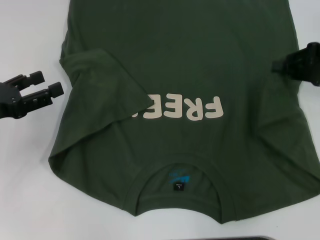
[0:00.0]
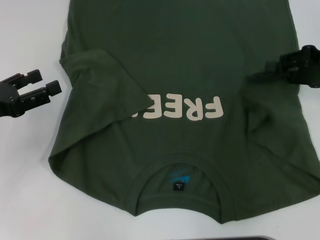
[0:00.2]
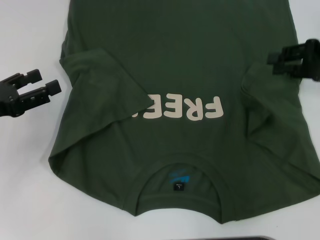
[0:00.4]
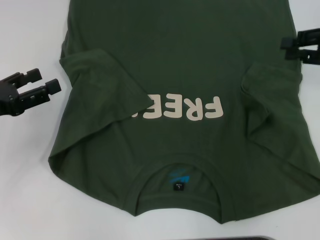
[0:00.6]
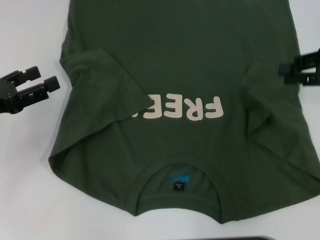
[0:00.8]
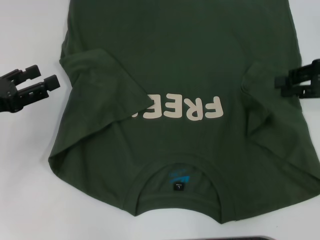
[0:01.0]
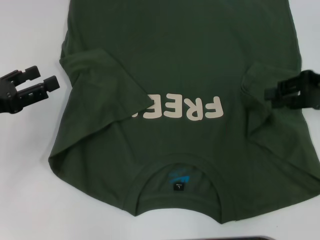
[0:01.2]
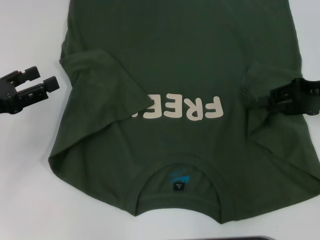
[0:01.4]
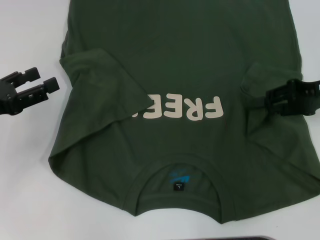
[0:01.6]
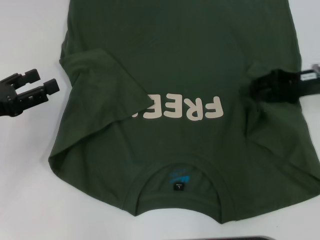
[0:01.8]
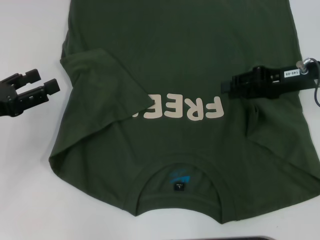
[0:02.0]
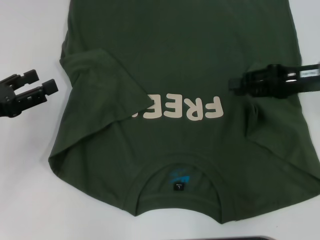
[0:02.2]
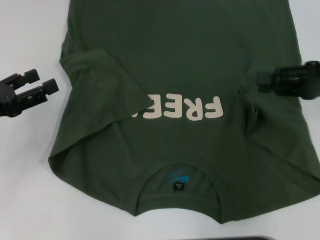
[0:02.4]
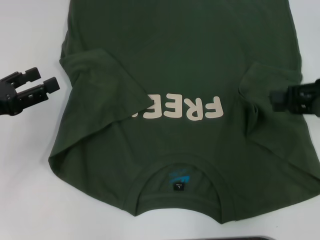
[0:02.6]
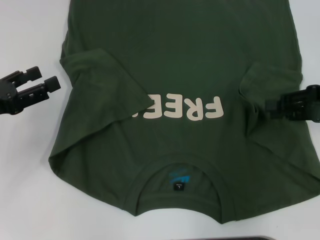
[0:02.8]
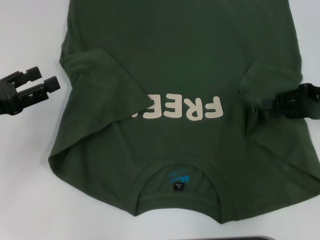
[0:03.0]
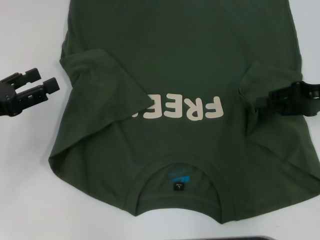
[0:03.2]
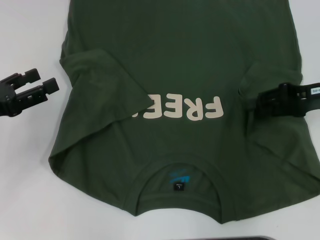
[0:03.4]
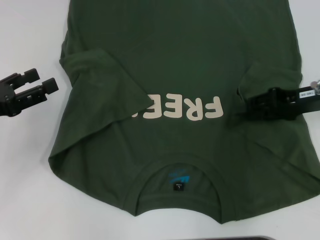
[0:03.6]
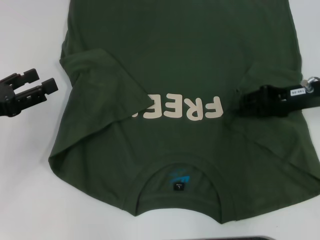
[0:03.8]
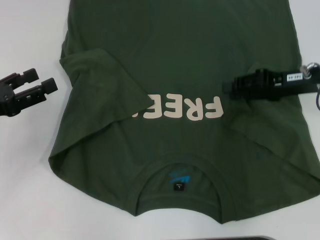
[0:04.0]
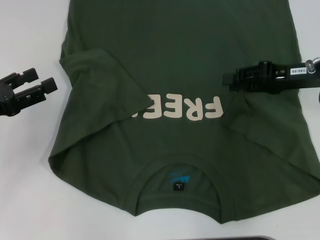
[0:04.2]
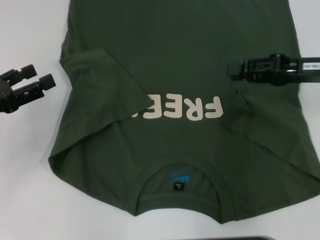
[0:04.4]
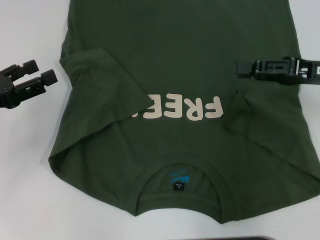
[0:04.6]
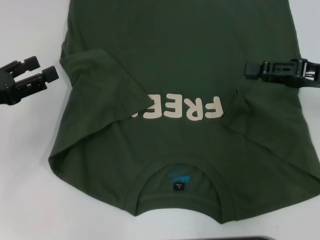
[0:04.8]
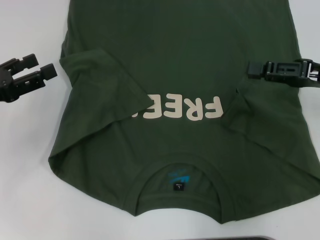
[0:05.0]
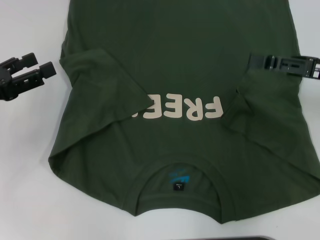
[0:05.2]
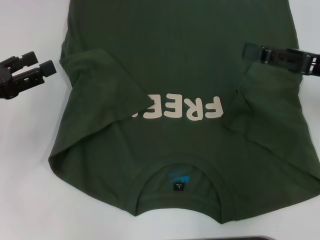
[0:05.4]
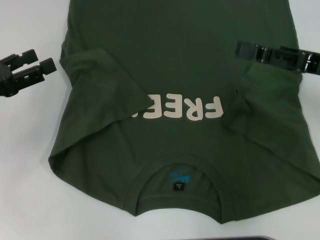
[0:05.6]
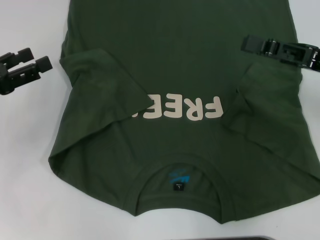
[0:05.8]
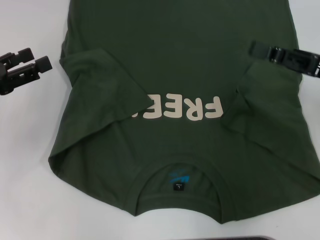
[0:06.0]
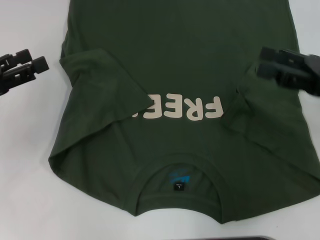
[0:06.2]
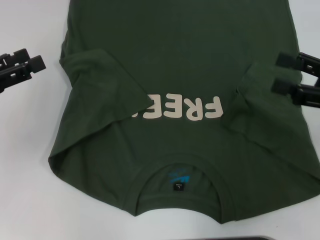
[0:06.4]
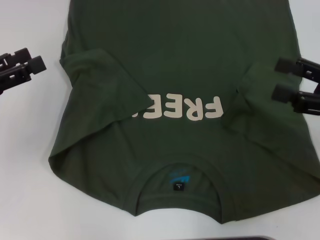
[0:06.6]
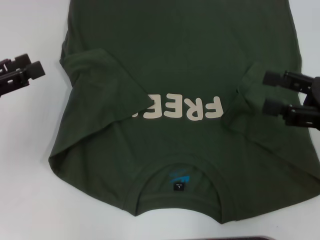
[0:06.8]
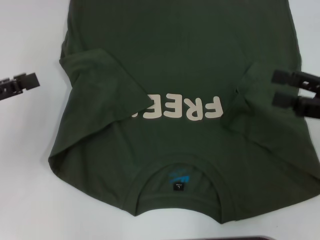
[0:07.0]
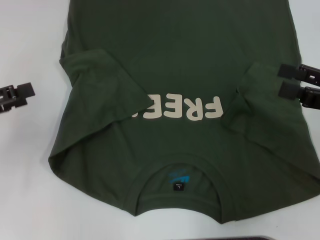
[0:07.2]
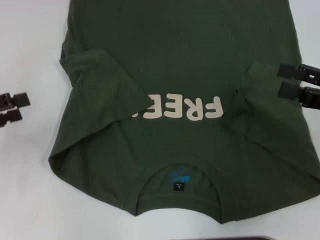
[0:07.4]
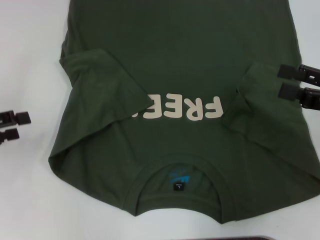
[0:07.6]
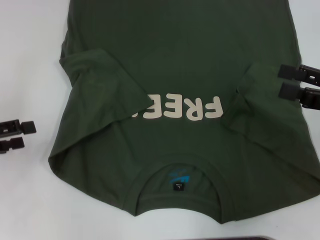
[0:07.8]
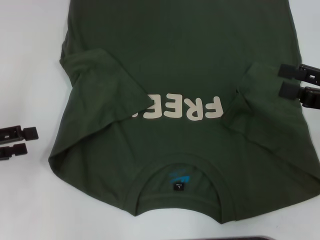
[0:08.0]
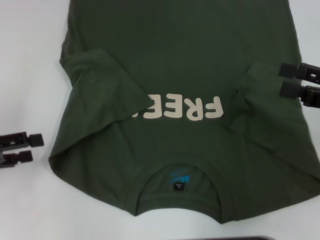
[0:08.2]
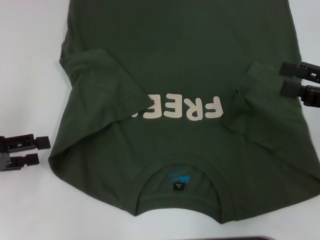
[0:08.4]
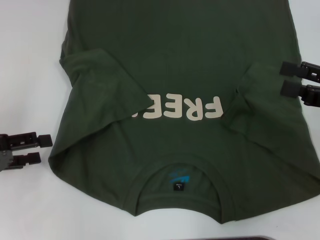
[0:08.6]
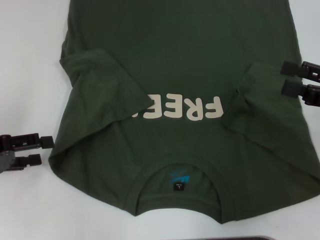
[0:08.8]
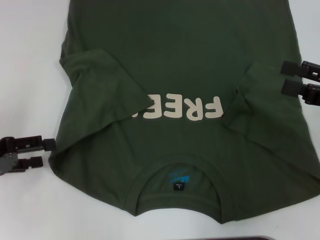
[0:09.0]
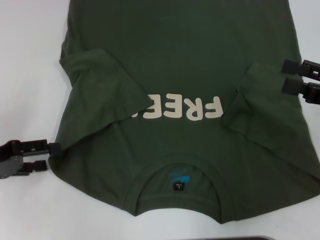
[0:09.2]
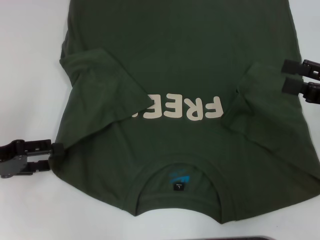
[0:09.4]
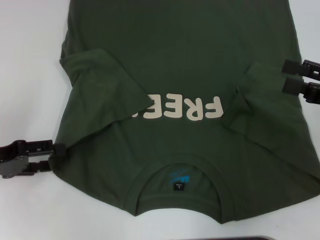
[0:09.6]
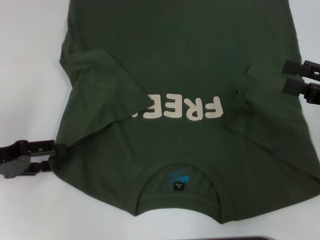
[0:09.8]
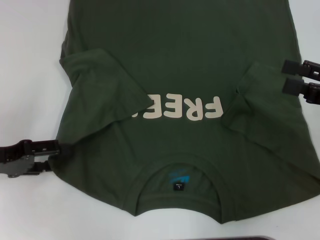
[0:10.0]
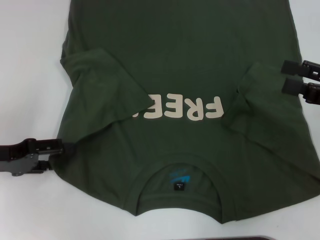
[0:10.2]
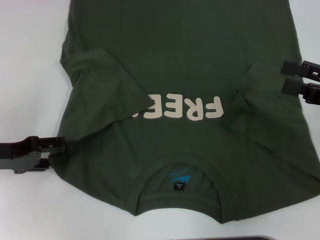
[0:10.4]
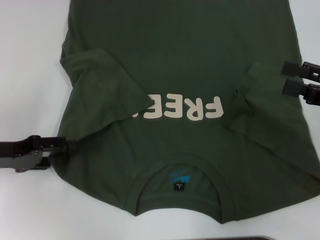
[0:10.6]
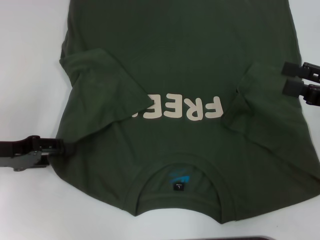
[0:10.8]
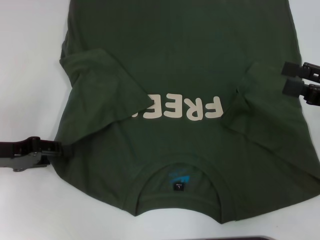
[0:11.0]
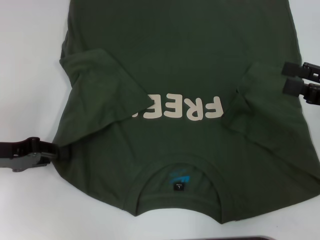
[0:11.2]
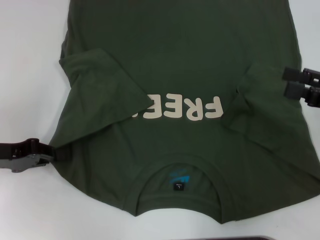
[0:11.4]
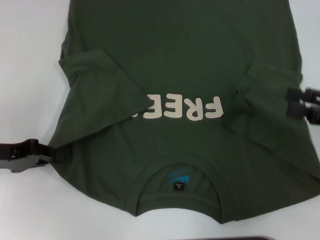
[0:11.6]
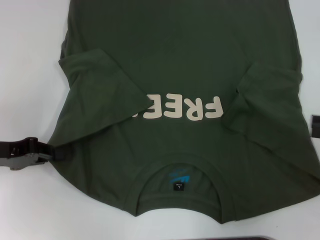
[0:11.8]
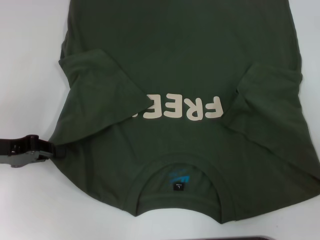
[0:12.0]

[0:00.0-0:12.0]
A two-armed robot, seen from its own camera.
Step, 0:00.0 to 0:04.2: Fold the bottom right sleeve with your right hand.
Step, 0:04.4 to 0:11.4: Grab the bottom left corner with your left hand.
0:00.0 to 0:01.6: The right gripper opens its fingers.
0:04.4 to 0:06.0: The right gripper opens its fingers.
0:06.0 to 0:07.6: The right gripper shifts by roughly 5 cm.
0:07.6 to 0:09.0: The grippers stay close to where they were, moving slightly.
0:09.0 to 0:10.4: The grippers move only a little.
0:10.4 to 0:12.0: The left gripper closes; the right gripper moves to the right, some 10 cm.

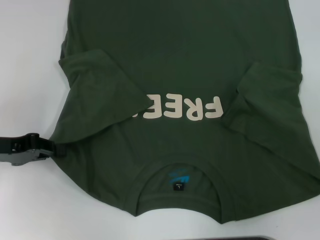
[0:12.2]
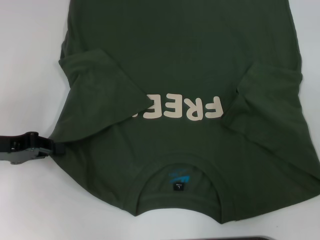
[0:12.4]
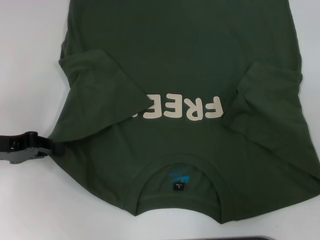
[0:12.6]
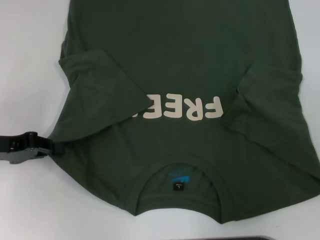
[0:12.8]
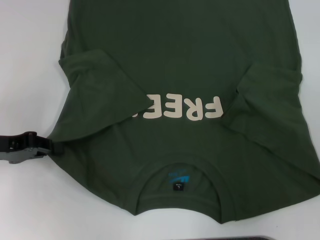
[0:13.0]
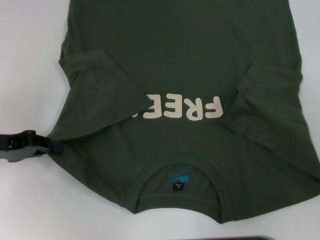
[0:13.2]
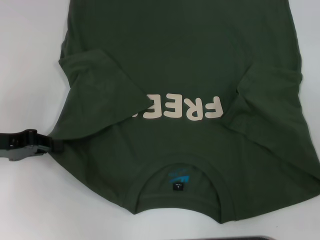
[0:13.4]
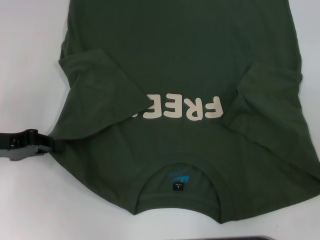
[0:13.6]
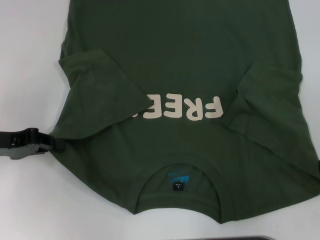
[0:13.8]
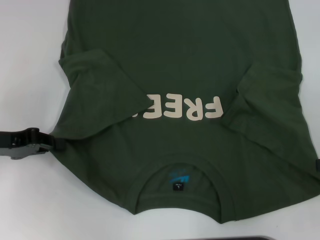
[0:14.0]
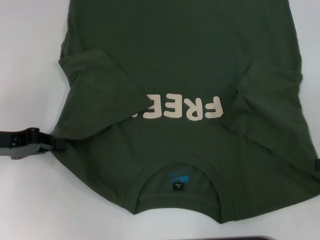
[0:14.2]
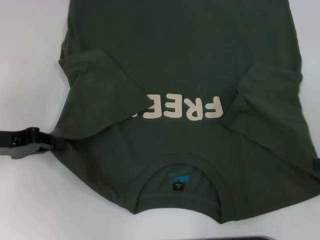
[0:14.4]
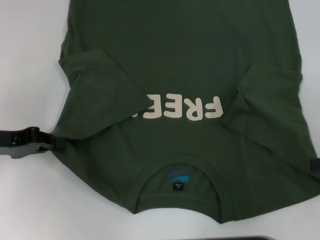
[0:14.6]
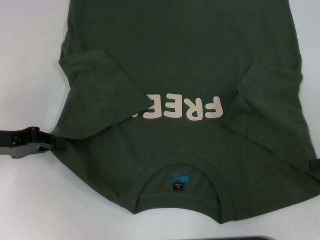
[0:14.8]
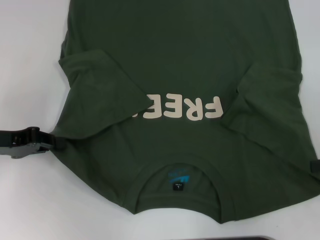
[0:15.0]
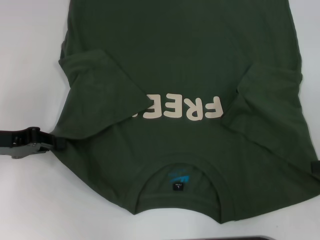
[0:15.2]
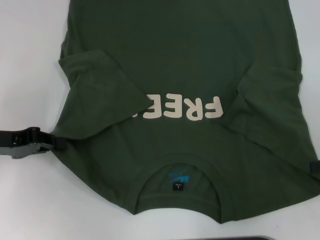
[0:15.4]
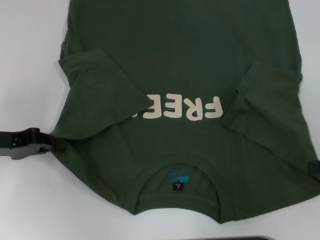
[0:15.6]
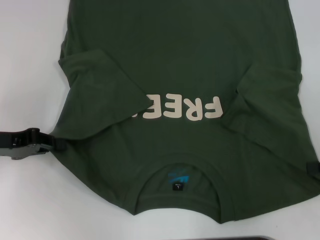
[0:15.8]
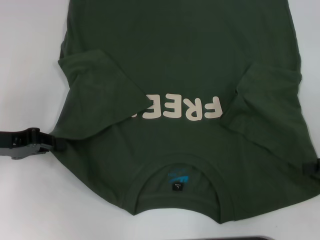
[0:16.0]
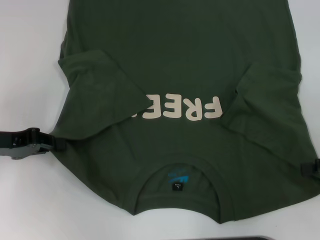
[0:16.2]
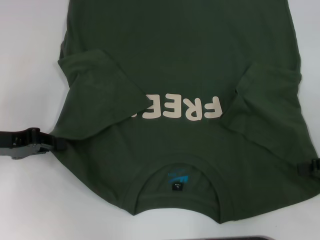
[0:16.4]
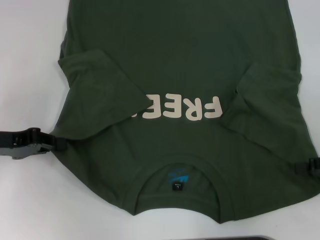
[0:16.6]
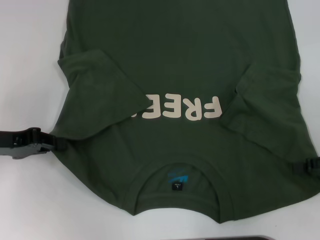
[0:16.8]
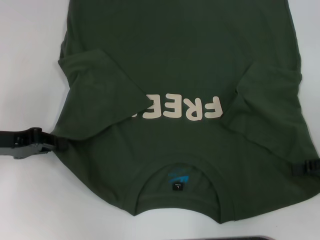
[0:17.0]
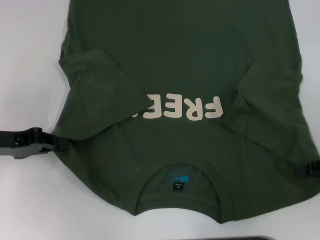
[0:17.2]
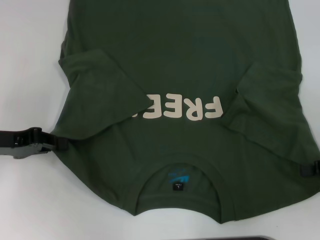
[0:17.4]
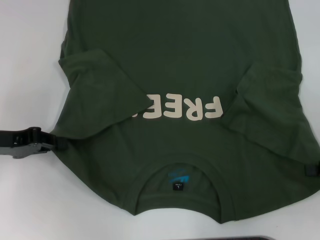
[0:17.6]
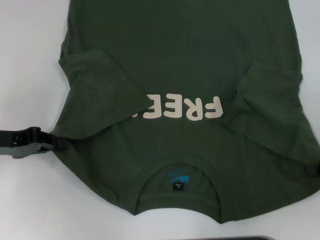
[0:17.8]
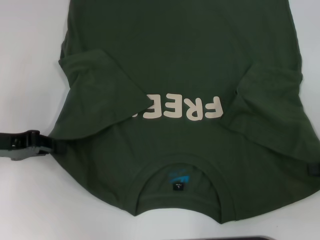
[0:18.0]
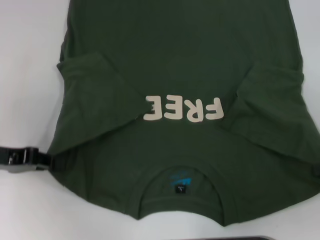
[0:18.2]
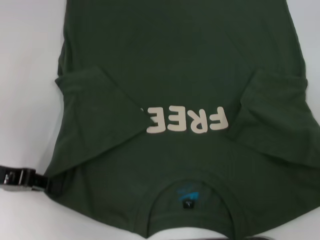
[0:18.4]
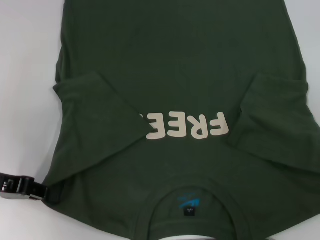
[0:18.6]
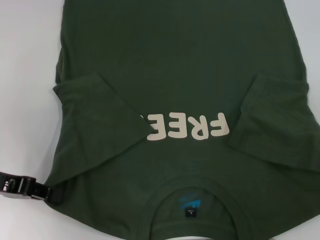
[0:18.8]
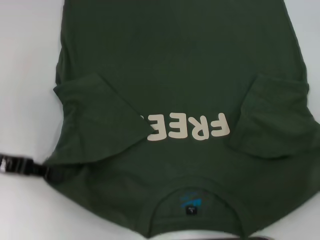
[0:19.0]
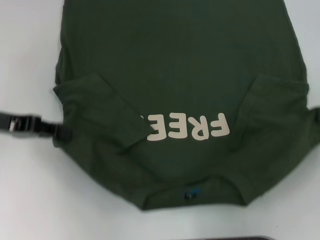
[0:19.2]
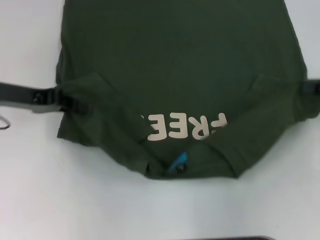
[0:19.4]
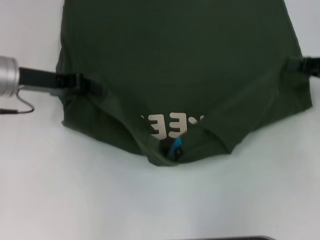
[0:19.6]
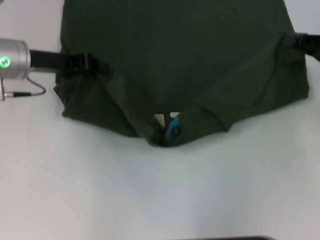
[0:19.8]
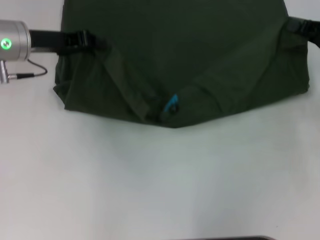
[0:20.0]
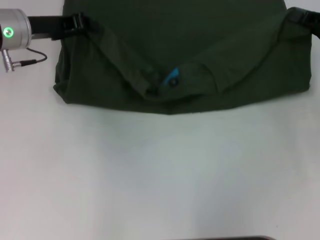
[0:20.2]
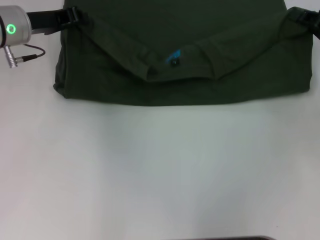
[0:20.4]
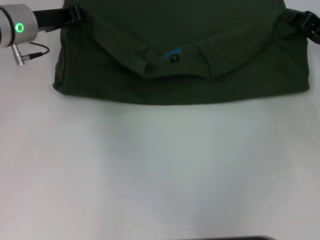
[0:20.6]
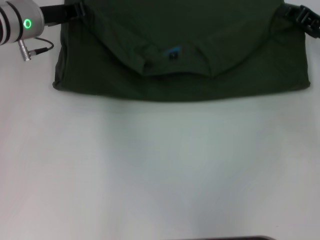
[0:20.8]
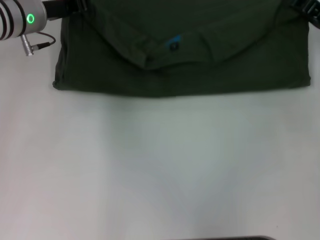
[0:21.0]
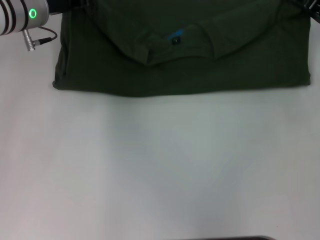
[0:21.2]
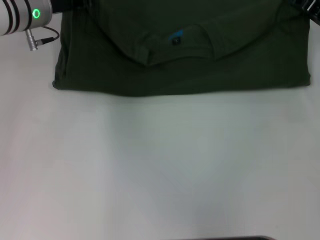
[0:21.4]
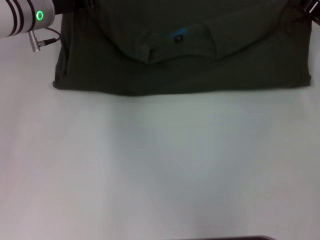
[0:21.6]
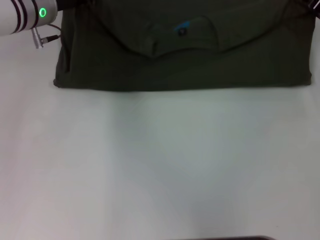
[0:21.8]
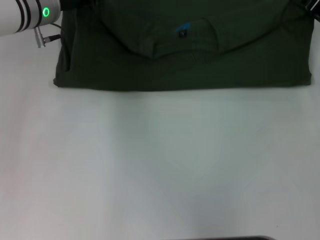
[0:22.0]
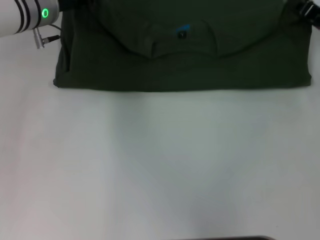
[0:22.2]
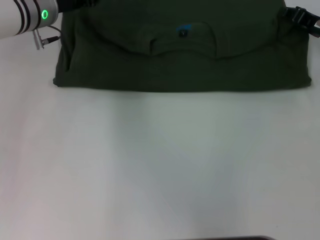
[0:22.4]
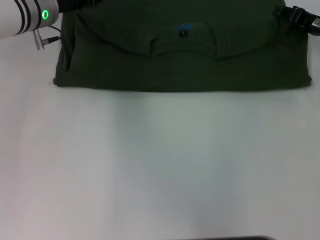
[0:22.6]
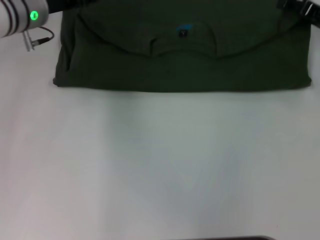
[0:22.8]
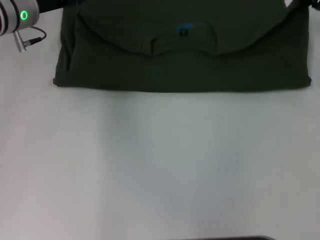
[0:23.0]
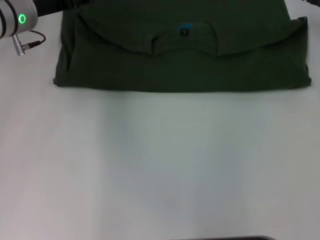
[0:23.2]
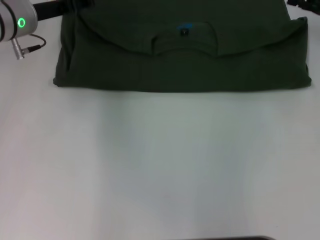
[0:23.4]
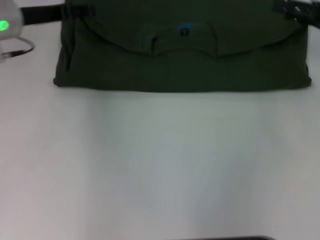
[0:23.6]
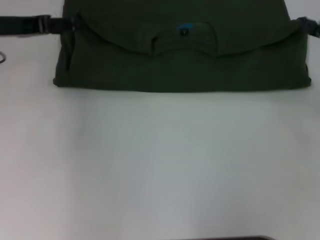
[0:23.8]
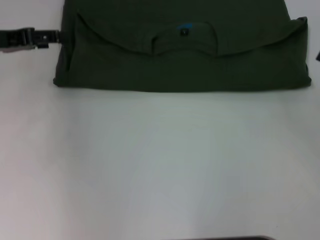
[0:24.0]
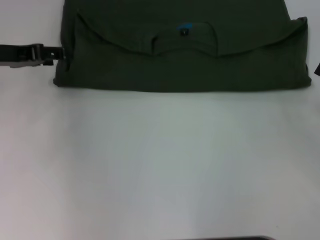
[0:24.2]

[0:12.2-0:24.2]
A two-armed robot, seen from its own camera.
Step, 0:18.0 to 0:23.2: Fold the clothes with your left hand.
Step, 0:18.0 to 0:23.2: Fold the clothes with your right hand.
0:12.2 to 0:13.8: There are only small adjustments of the grippers.
0:15.2 to 0:16.6: The grippers move only a little.
0:16.6 to 0:18.2: The right gripper closes its fingers.
0:18.2 to 0:19.8: The right gripper is displaced forward by some 10 cm. The left gripper goes roughly 15 cm forward and to the right.
0:19.8 to 0:21.2: Both grippers move forward, about 5 cm.
0:21.2 to 0:22.6: The grippers make only small movements.
0:22.6 to 0:24.2: The right gripper heads backward, covering approximately 15 cm, and opens, while the left gripper moves to the left and backward, roughly 15 cm, and opens up.
